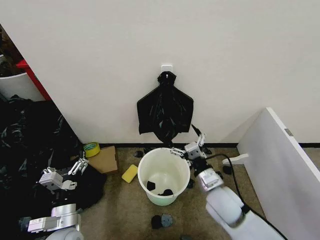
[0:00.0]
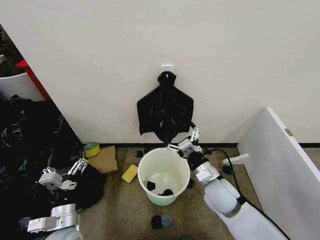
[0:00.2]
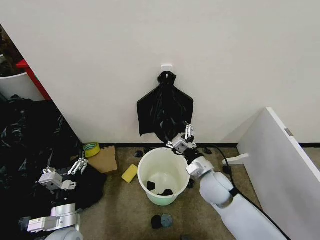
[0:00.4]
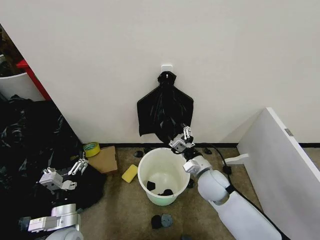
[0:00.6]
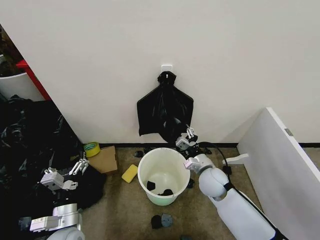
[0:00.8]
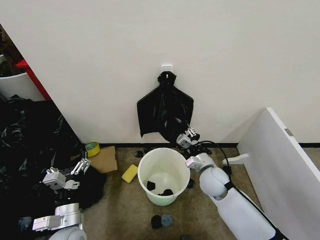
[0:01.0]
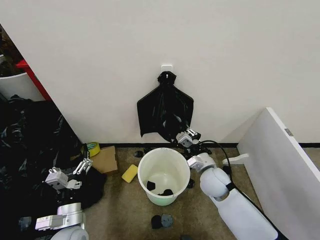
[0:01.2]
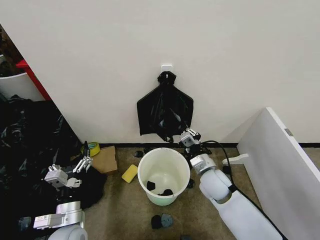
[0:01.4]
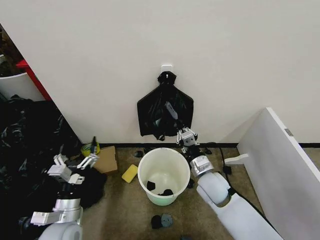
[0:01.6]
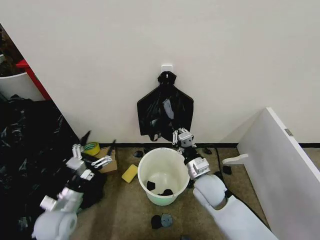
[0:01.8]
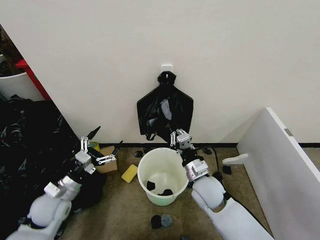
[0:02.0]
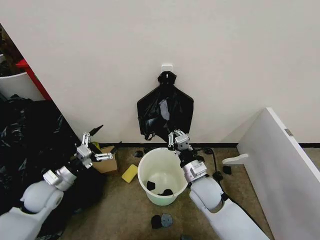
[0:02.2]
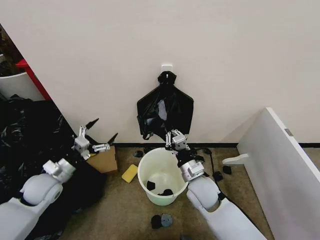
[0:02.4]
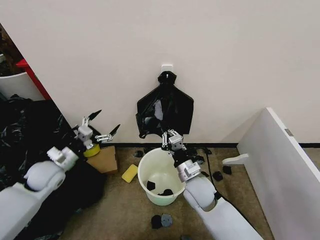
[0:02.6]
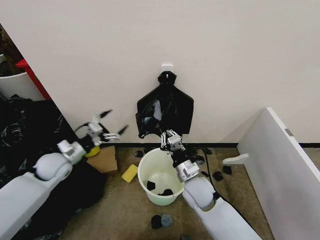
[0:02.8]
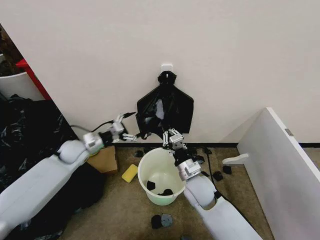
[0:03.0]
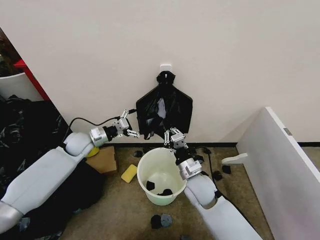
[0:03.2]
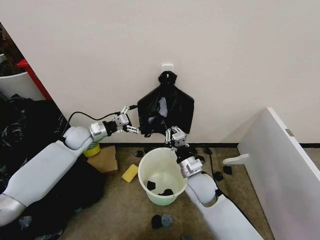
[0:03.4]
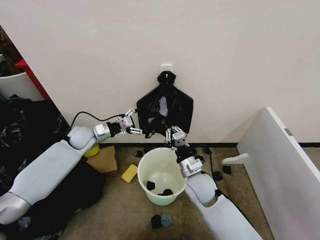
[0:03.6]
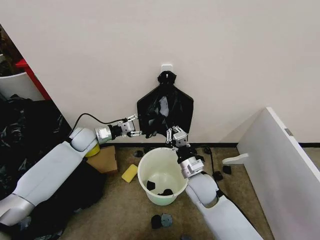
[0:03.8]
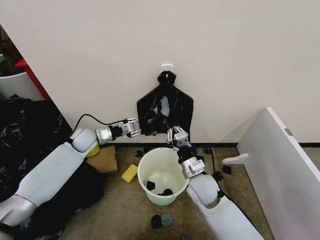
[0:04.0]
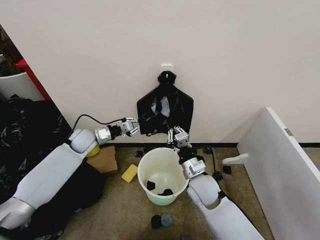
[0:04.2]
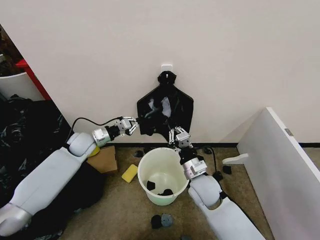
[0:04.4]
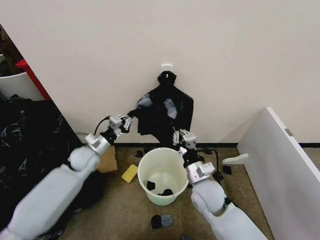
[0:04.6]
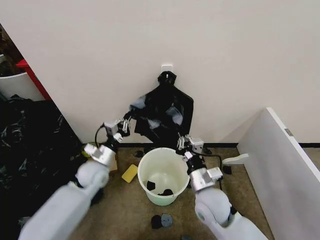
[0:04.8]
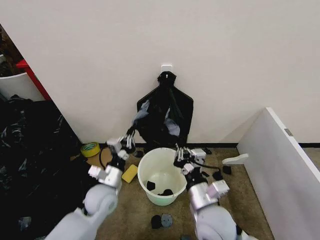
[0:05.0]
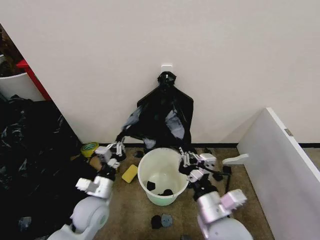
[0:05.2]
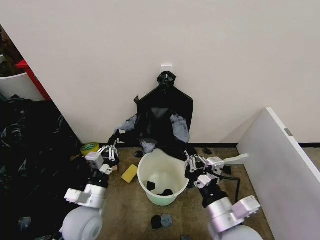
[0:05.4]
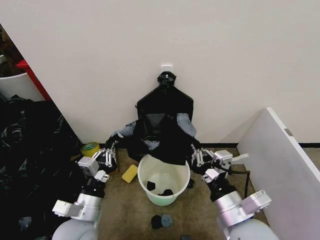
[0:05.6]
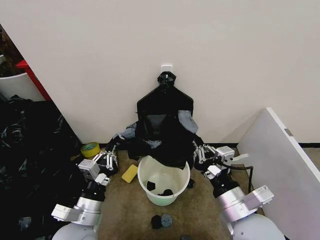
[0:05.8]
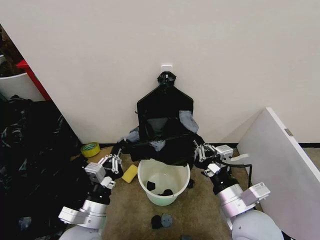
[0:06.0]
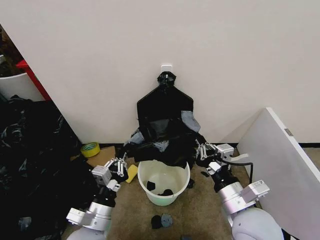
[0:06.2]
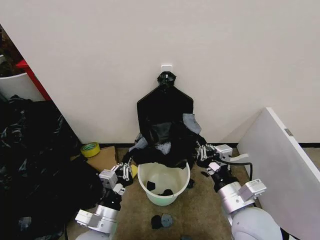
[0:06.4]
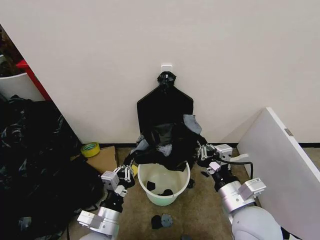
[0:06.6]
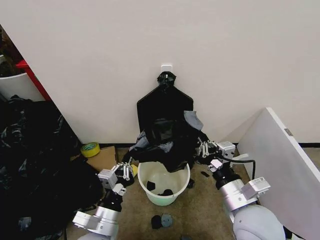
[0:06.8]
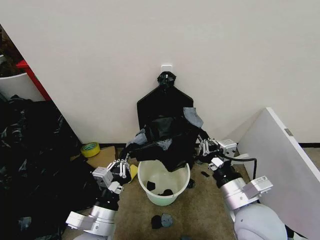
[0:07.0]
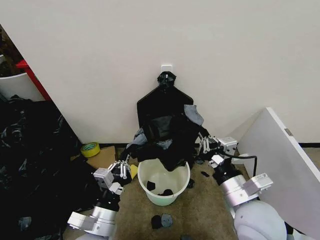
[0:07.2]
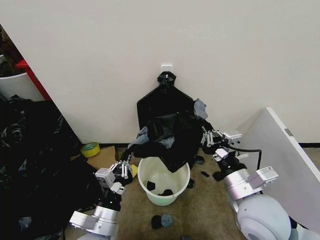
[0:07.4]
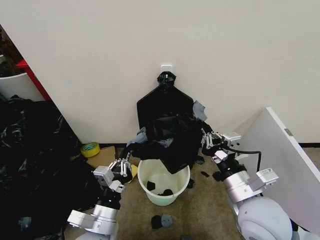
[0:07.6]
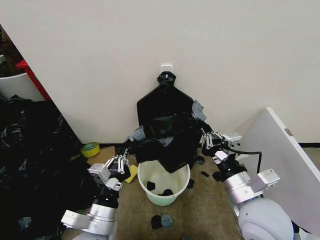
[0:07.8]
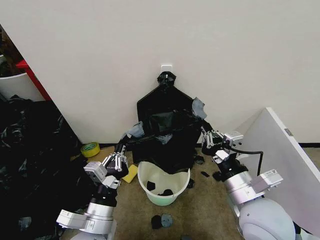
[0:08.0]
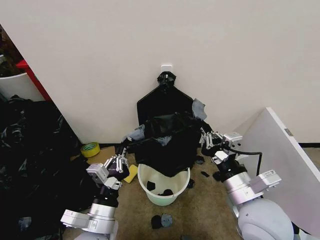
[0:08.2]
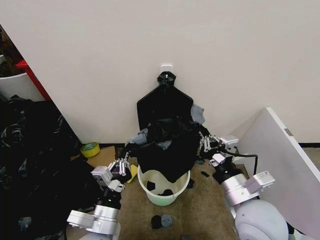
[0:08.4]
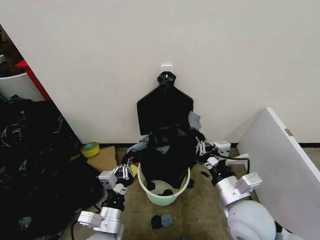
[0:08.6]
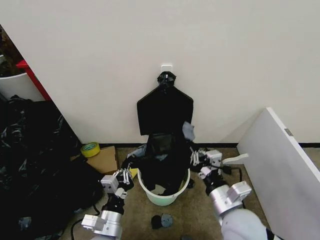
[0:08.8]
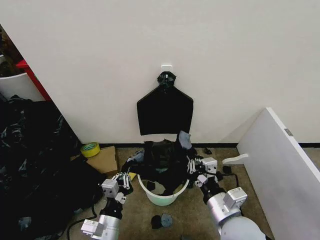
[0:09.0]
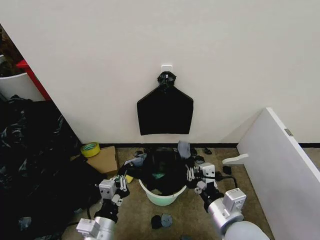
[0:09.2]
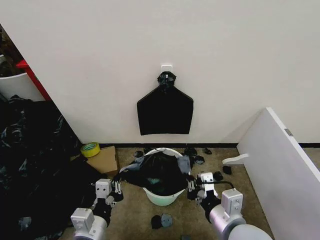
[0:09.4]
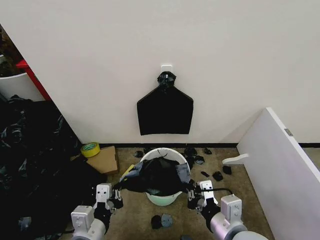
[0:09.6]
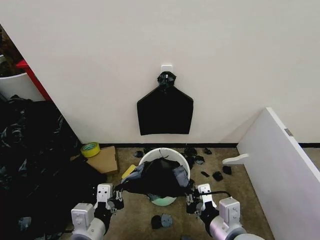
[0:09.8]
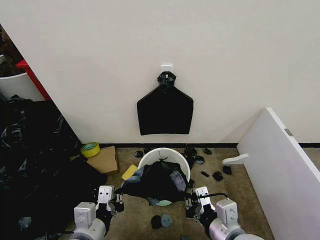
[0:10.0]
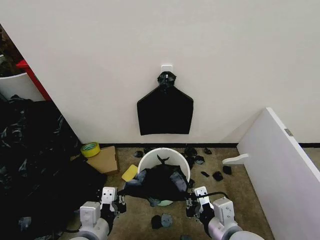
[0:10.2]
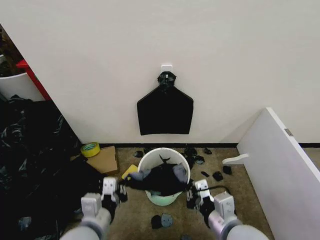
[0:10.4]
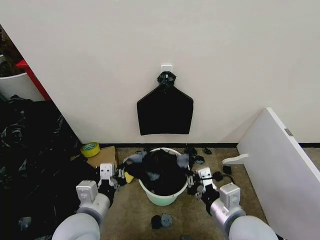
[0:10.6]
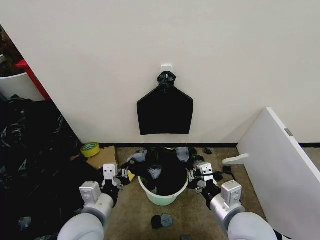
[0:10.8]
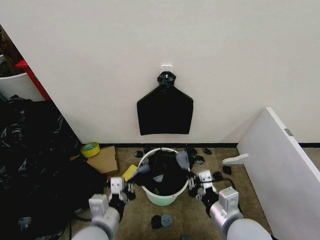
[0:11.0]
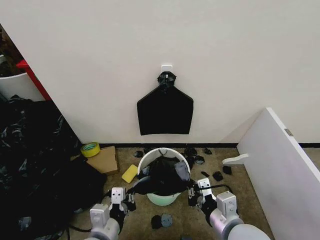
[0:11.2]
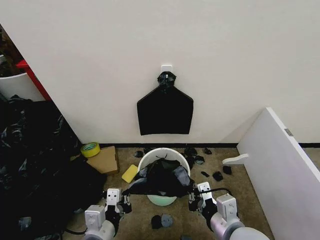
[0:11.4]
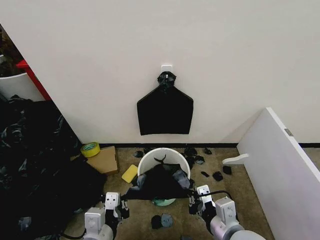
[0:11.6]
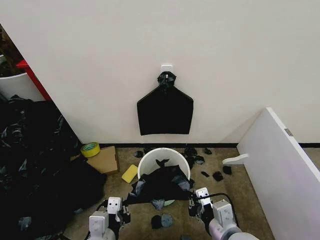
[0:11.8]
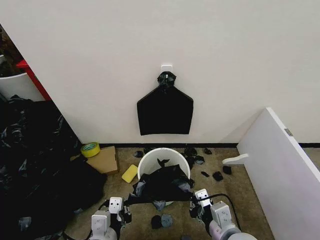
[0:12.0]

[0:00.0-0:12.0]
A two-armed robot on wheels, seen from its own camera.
Task of the whole recording: Place the garbage bag over the trash bin.
0:00.0 to 0:01.6: The right gripper moves forward, roughly 5 cm, and closes.
0:01.6 to 0:03.0: The left gripper is displaced forward by about 25 cm.
0:03.0 to 0:04.4: The left gripper closes up.
0:04.4 to 0:06.0: The right gripper travels backward, upward and to the right by some 20 cm. The left gripper travels backward by some 30 cm.
0:06.0 to 0:07.6: The grippers stay close to where they were, moving slightly.
0:07.6 to 0:09.0: Both grippers travel together downward, some 5 cm.
0:09.0 to 0:10.4: The left gripper travels upward by some 10 cm.
0:10.4 to 0:12.0: The grippers make only small movements.

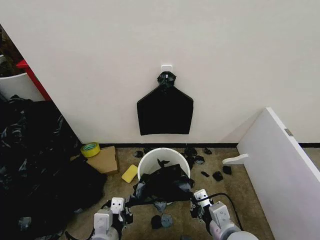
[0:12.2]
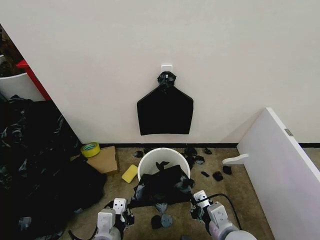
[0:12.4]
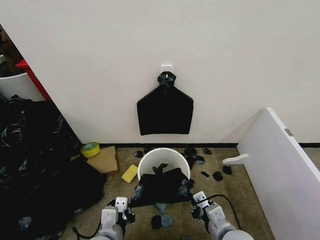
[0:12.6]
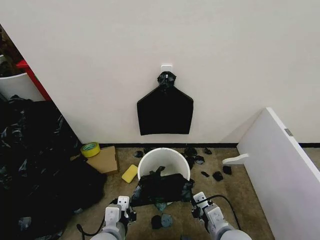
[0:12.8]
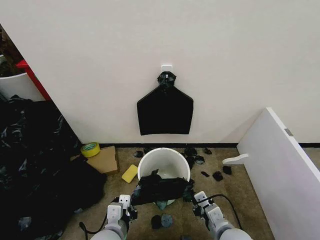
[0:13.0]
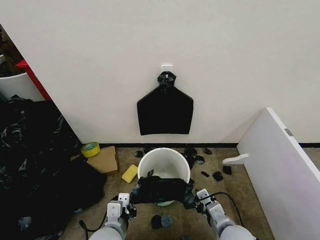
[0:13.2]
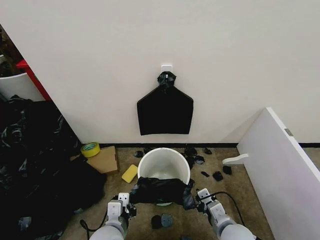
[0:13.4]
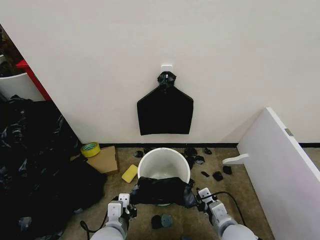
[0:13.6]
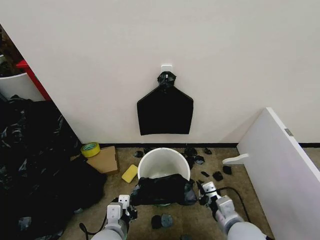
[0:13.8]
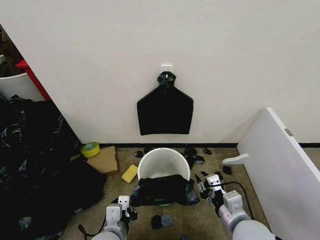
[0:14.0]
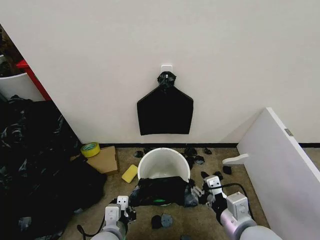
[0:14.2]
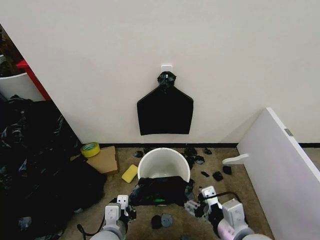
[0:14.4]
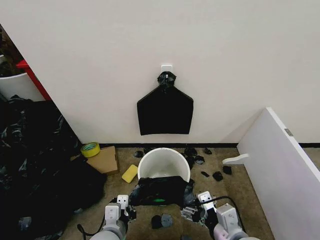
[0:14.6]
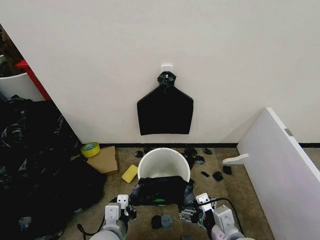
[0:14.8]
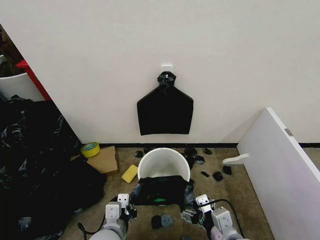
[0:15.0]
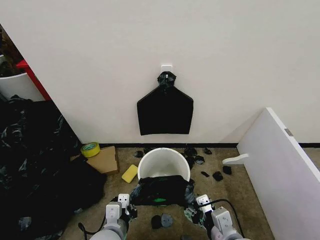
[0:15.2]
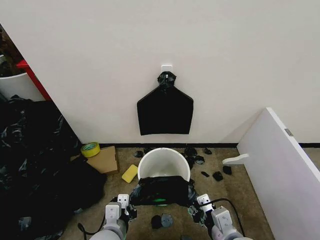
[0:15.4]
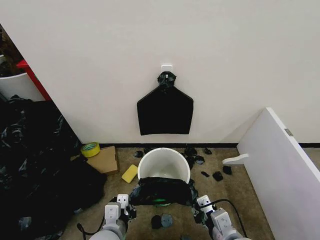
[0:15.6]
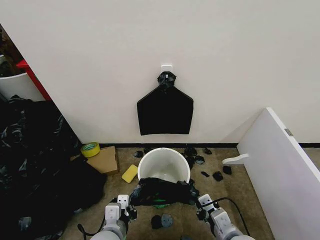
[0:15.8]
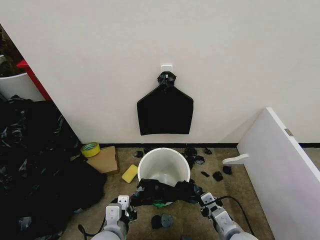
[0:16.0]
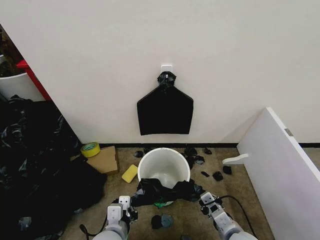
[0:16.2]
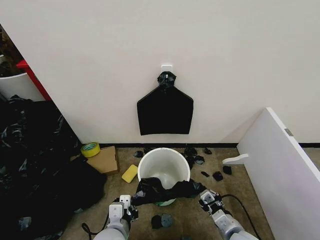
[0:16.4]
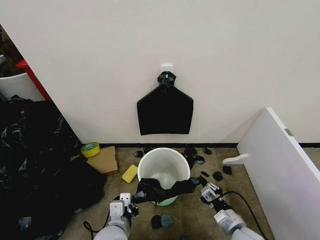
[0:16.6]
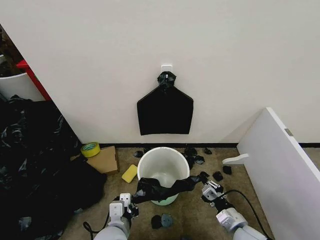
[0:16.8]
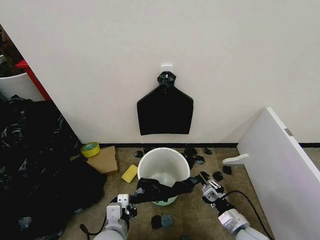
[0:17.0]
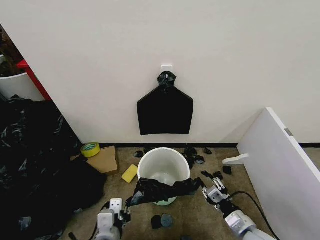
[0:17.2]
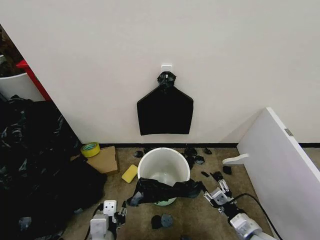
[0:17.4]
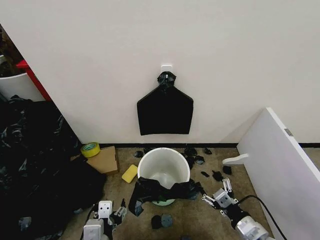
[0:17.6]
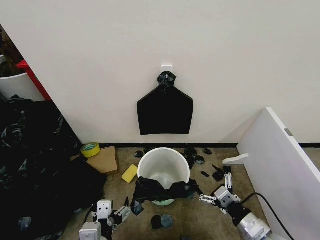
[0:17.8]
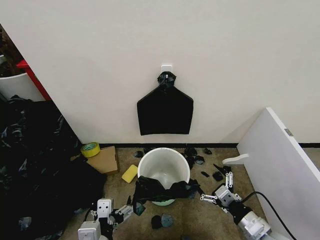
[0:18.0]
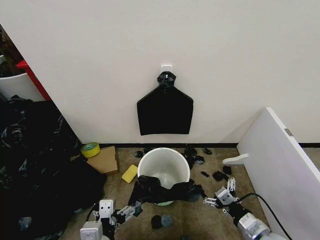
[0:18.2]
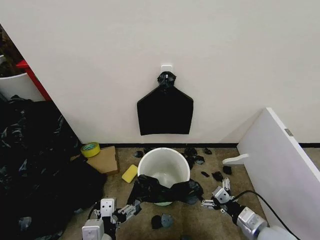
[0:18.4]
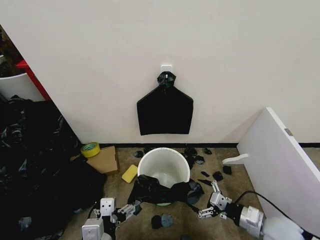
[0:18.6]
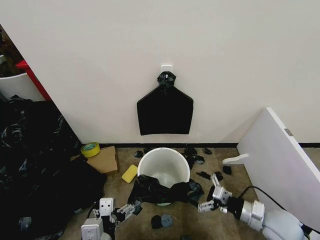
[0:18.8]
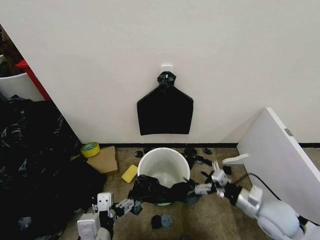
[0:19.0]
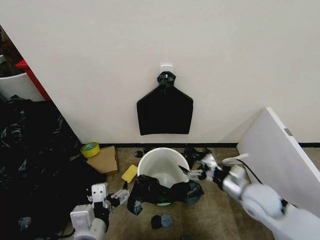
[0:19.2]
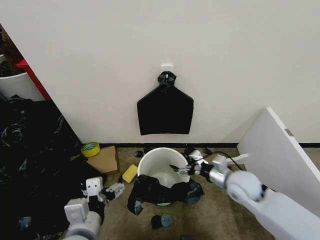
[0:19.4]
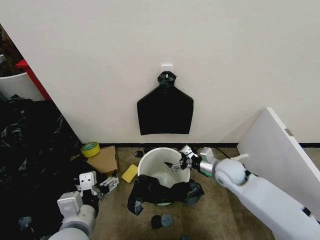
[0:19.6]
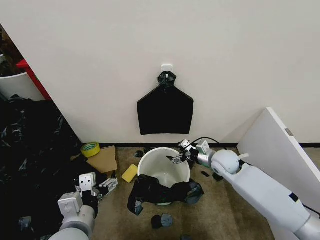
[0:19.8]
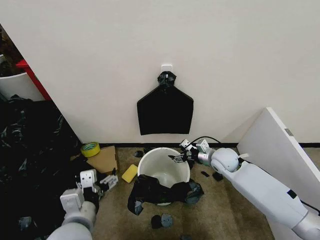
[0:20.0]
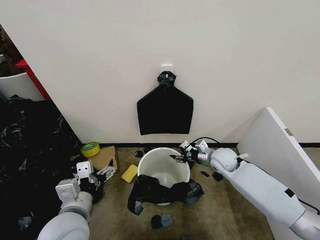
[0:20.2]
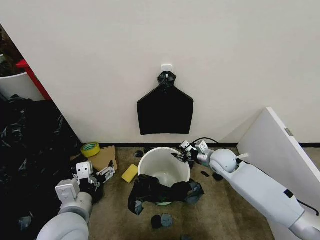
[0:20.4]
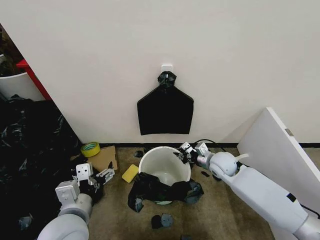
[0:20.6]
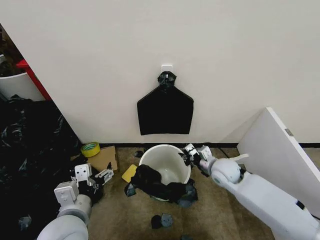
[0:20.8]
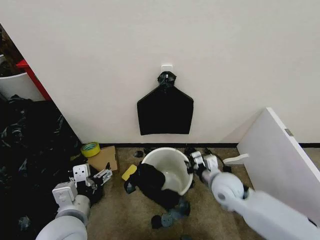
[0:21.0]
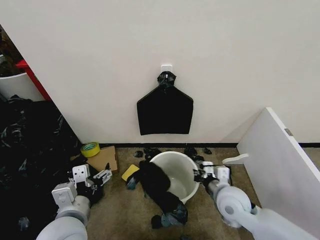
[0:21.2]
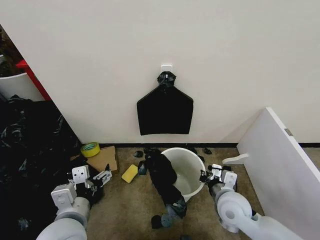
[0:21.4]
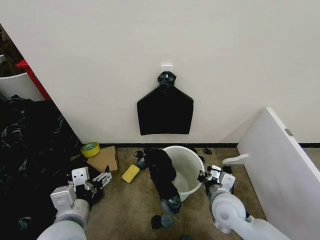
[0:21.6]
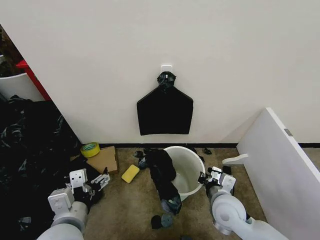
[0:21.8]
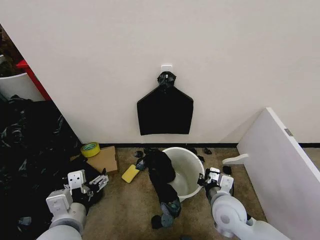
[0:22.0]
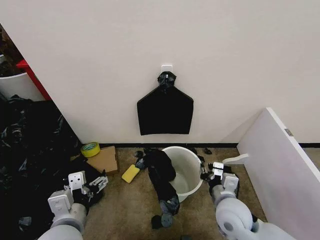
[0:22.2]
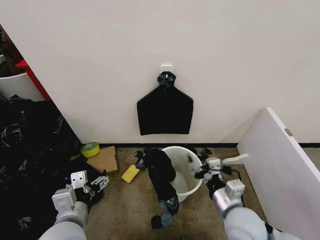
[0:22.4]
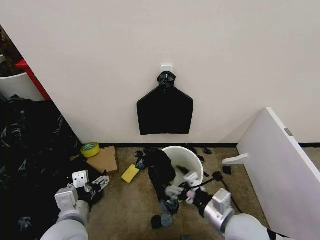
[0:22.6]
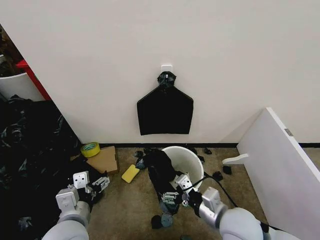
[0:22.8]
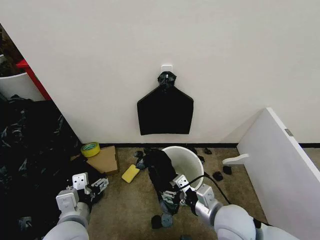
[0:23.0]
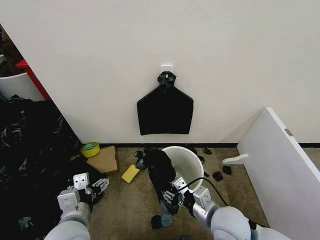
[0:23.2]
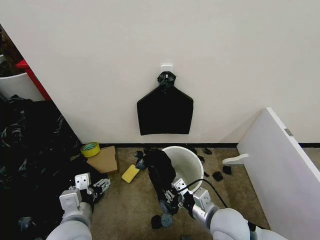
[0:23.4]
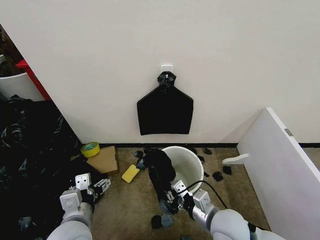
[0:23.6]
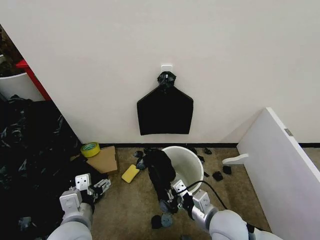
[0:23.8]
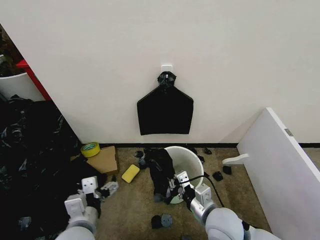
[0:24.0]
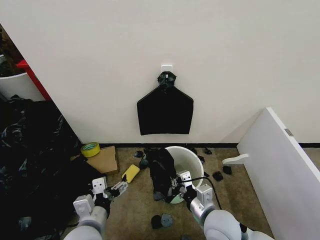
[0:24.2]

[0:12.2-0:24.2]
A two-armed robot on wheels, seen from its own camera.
Task of the whole recording: Place the garbage bag over the trash bin.
0:12.2 to 0:13.8: The left gripper shifts by approximately 5 cm. The right gripper travels downward by some 5 cm.
0:13.8 to 0:15.2: The right gripper moves some 10 cm, and opens up.
0:15.2 to 0:16.6: The right gripper shifts some 15 cm downward, to the right and forward, and closes up.
0:16.6 to 0:18.2: The right gripper moves upward, roughly 5 cm, and opens its fingers. The left gripper moves backward and upward, some 10 cm, and opens its fingers.
0:18.2 to 0:19.8: The right gripper heads forward, covering roughly 25 cm, while the left gripper moves forward, approximately 5 cm.
0:19.8 to 0:21.2: The right gripper heads backward, covering about 15 cm, and closes its fingers.
0:21.2 to 0:22.6: The right gripper heads backward, covering approximately 10 cm, and opens up.
0:22.6 to 0:24.2: The right gripper moves approximately 5 cm, and closes; the left gripper travels downward by some 5 cm.
